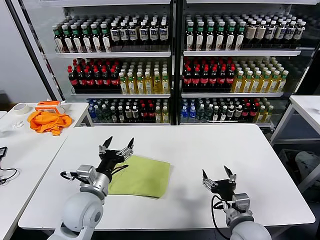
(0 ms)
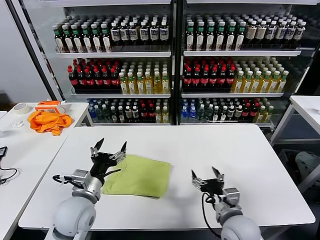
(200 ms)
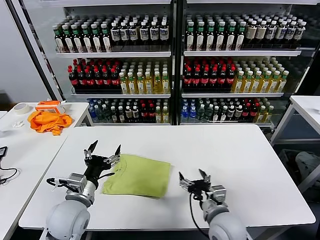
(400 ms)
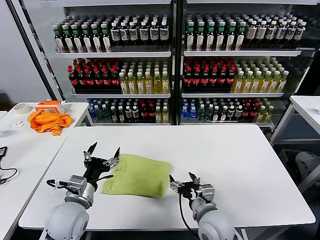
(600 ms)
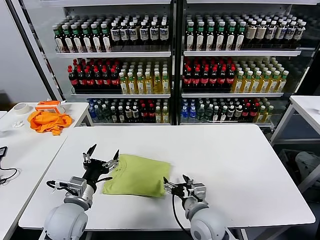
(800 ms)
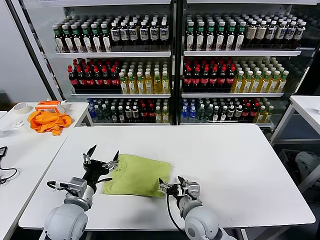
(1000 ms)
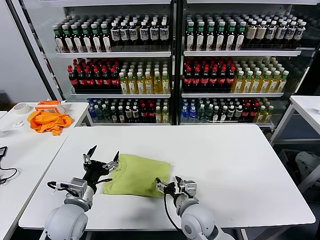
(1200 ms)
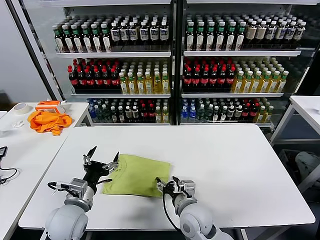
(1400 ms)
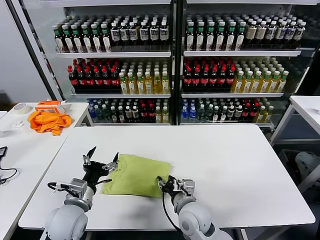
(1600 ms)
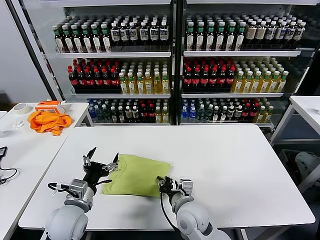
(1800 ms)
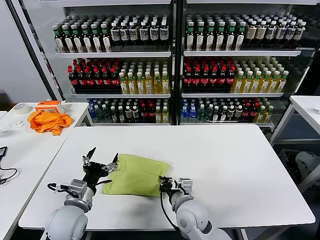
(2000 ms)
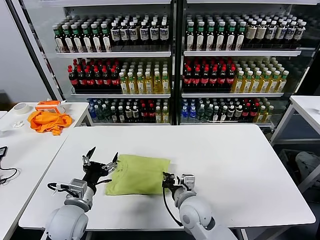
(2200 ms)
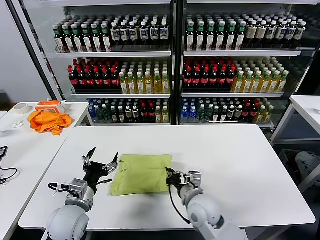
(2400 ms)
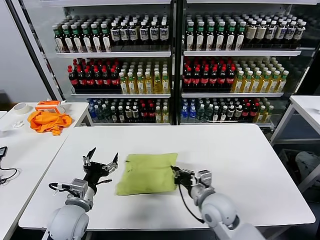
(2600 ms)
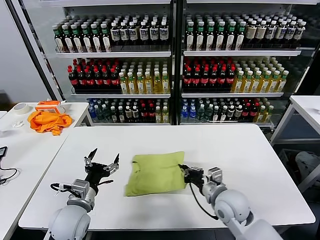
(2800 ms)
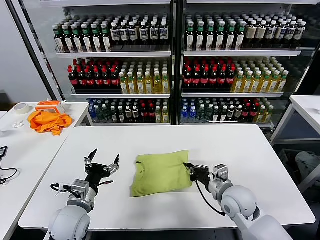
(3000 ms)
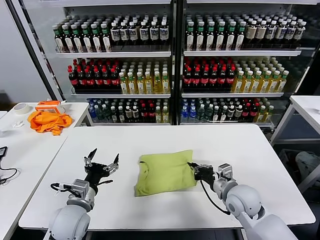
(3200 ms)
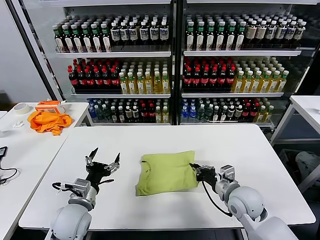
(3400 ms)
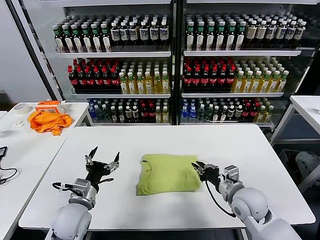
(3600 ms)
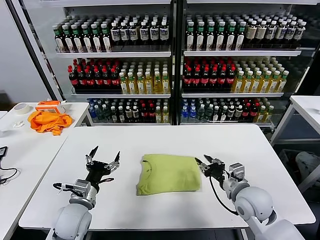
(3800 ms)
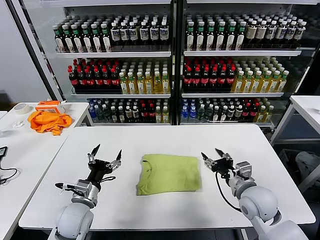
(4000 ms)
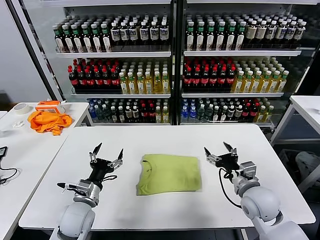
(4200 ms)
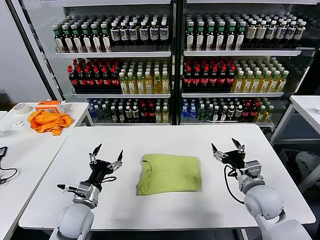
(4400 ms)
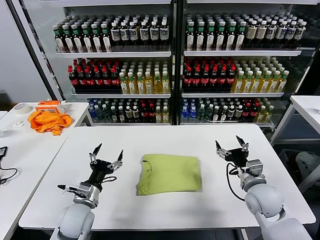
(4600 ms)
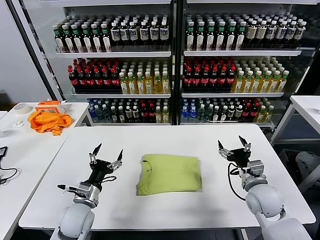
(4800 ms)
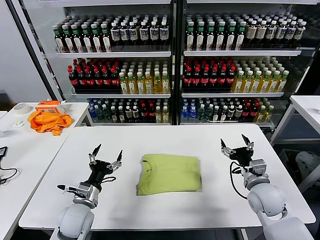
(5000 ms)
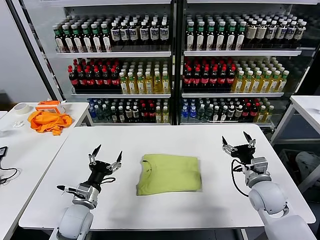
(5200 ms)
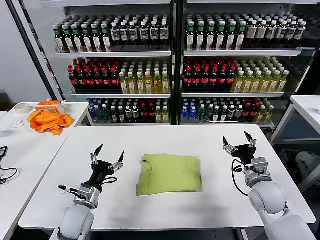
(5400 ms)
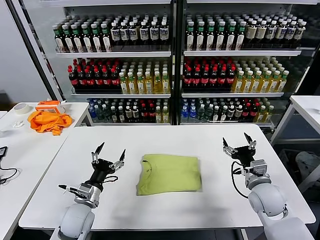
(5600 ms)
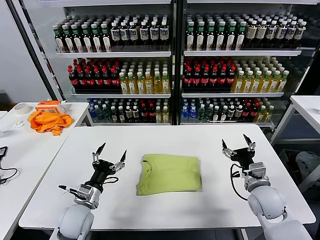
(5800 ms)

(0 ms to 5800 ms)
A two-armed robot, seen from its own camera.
Task of the whole recording: fold and organize the clothes.
Step, 0 ms - 3600 ms: Drag the clothes to the center of the table.
0 ms - 1400 ms: The left gripper is displaced to the left by about 5 cm; the right gripper travels to the left and forward by some 15 cm.
1400 ms - 2800 ms: The right gripper heads to the right, covering about 10 cm, and closes up.
2800 ms - 4400 ms: The right gripper travels to the right by about 10 cm, and opens up.
4400 ms - 5800 ms: The grippers make only small movements.

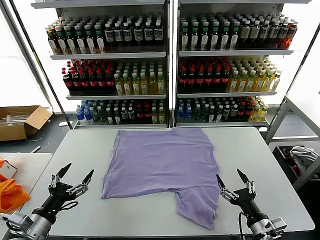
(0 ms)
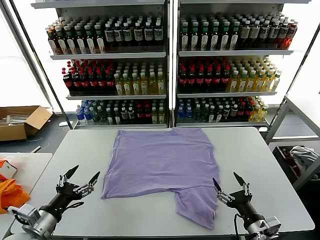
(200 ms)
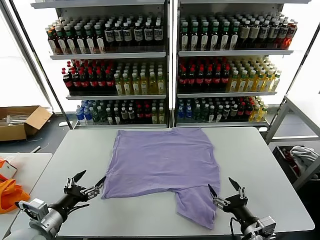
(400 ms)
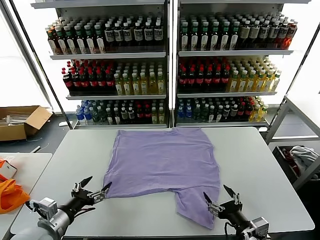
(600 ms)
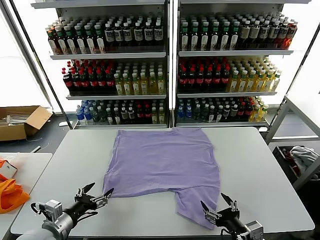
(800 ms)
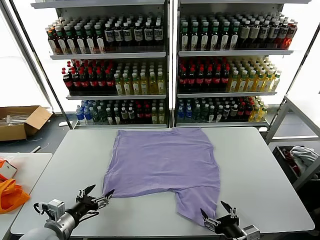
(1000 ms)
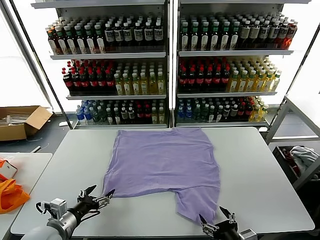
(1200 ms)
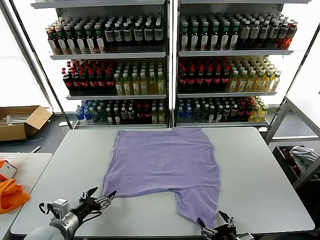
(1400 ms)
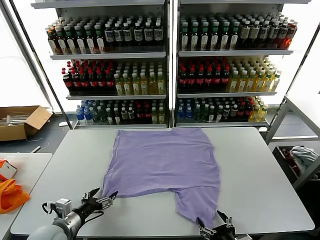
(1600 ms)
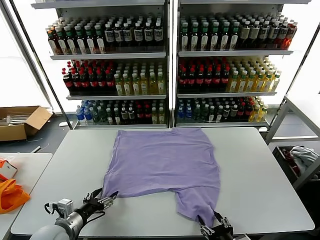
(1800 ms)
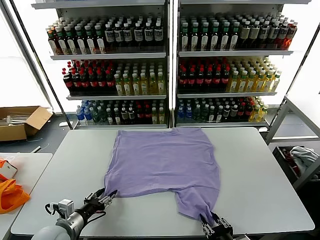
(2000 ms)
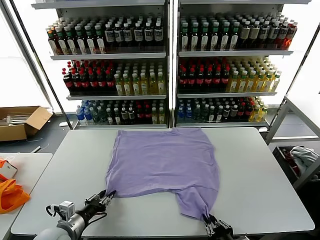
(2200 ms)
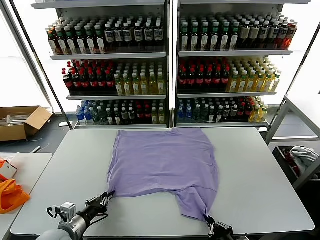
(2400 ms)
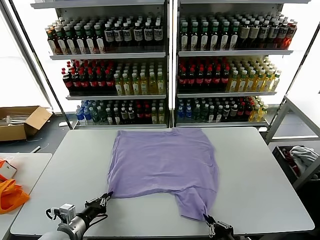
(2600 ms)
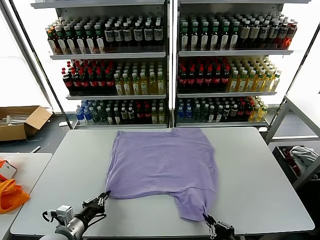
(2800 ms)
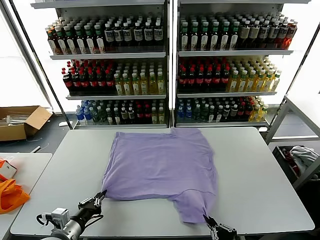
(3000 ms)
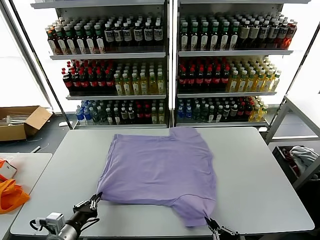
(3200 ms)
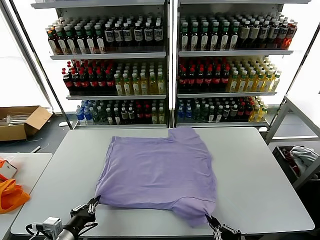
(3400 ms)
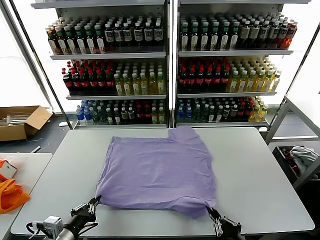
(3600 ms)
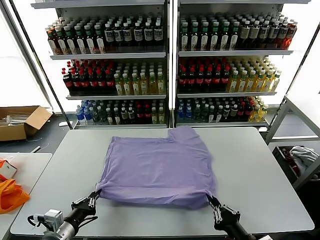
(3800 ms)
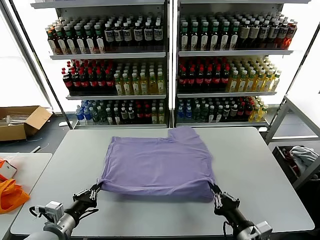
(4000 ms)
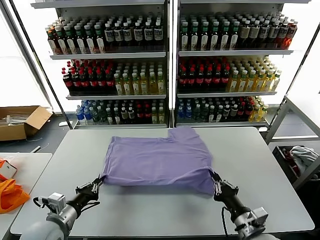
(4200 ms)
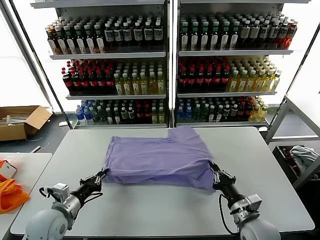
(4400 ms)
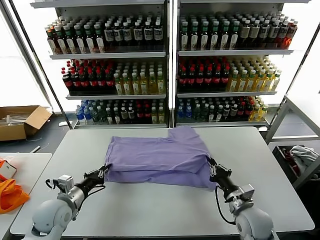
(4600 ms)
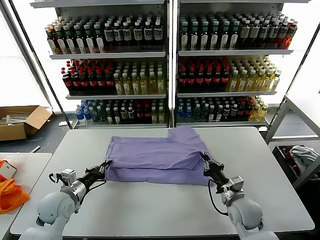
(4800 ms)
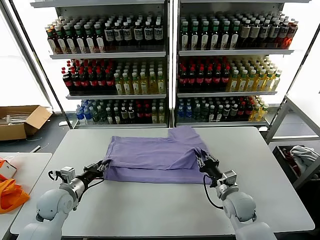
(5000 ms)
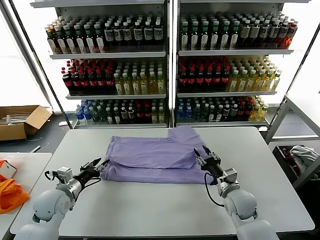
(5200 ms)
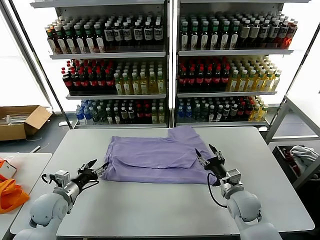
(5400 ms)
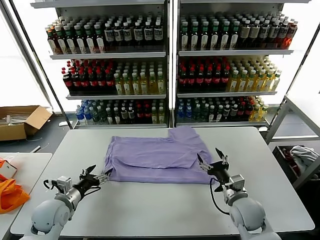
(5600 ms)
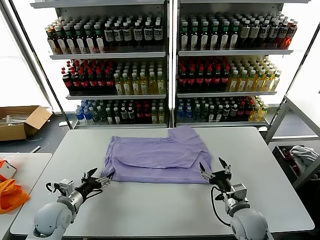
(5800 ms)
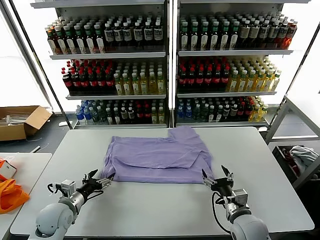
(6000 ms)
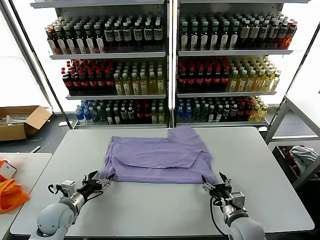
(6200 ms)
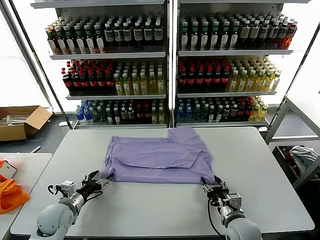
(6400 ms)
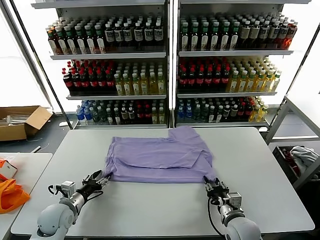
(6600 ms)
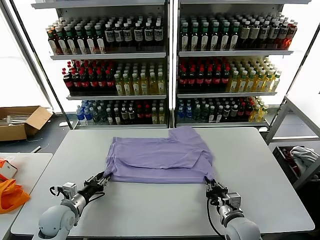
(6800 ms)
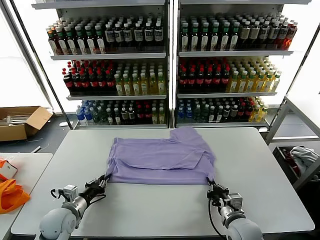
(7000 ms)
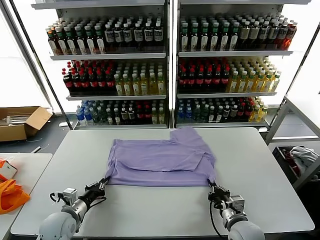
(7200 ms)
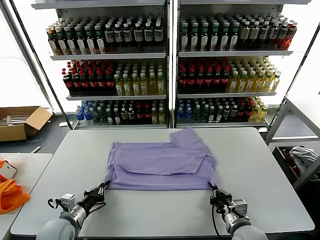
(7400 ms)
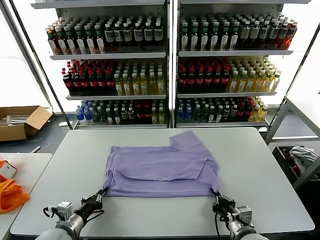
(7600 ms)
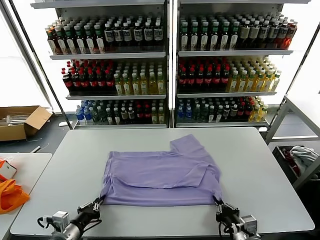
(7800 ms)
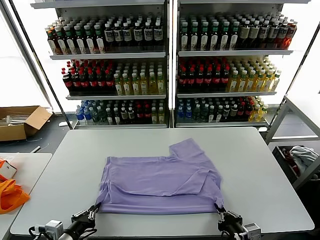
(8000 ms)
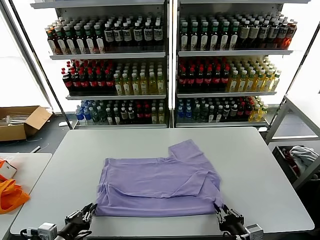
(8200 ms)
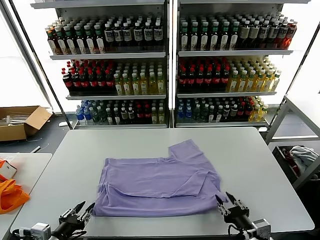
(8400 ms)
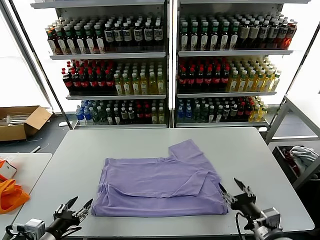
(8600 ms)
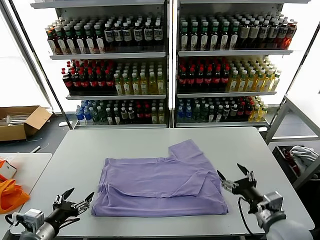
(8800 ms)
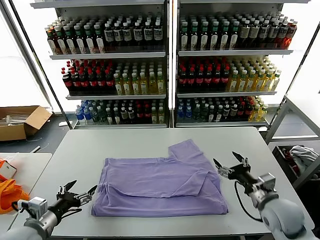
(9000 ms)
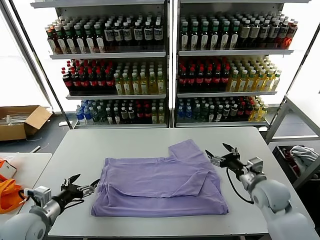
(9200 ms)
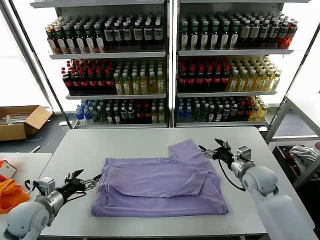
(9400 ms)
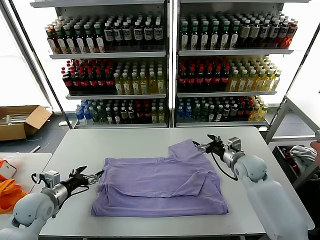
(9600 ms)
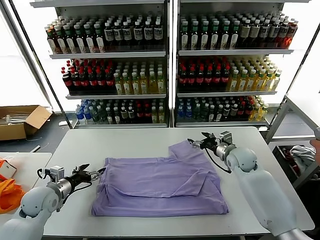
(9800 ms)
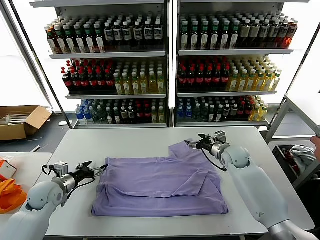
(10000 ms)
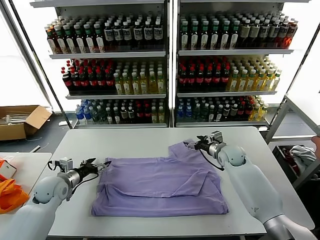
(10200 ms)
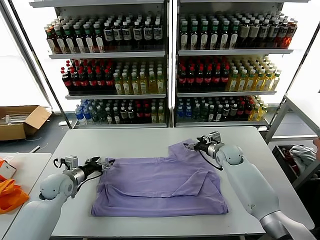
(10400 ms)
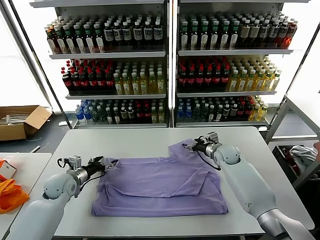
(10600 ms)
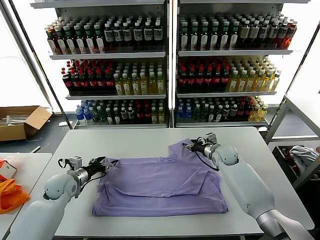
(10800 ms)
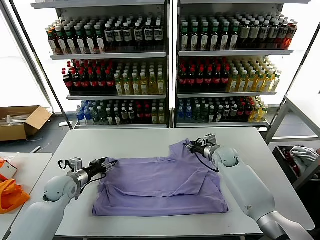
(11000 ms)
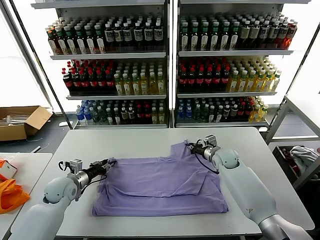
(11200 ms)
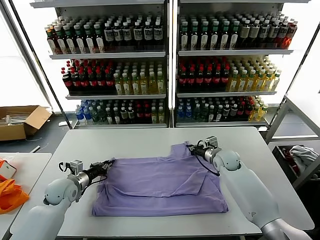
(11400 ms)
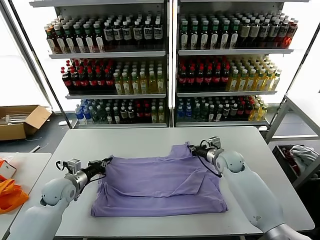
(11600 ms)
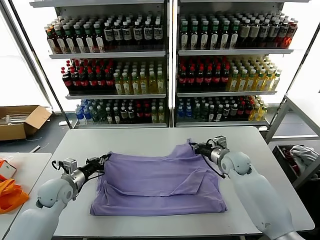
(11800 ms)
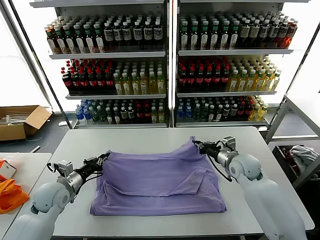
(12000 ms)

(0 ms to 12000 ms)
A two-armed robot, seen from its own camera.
Task of the whole recording: fold and organize the clothes.
Step, 0 ms - 2800 ms: use both grippers simultaneously to clamp the lower edge of the clothing fabric.
Step, 3000 ms - 5200 ms: use both grippers to drag the lower edge of the fabric forward and fold it over the upper edge.
Step, 5400 ms - 8400 ms: Drag the clothes downward with both gripper.
Step, 8600 ms - 11400 ms: use both grippers simultaneously to clamp the upper edge of the clothing fabric.
1600 ms - 3000 ms: The right gripper closes its fingers. Meanwhile the left gripper closes.
3000 ms - 4400 ms: The left gripper travels forward by about 5 cm. The right gripper moves forward, roughly 15 cm.
4400 ms - 6000 ms: The right gripper goes forward and returns, approximately 10 cm each way, and opens its fingers. Meanwhile the left gripper changes place by some 5 cm, and opens its fingers.
6000 ms - 7600 ms: Both grippers travel together backward, approximately 5 cm. The left gripper closes its fingers. The right gripper closes.
7600 ms - 9000 ms: The left gripper shifts about 10 cm upward, and opens up, while the right gripper heads forward, upward and to the right, covering approximately 15 cm, and opens.
9000 ms - 10400 ms: Both grippers move forward, roughly 20 cm.
10400 ms - 12000 ms: The left gripper shifts by roughly 5 cm, and closes up. The right gripper heads backward, covering some 10 cm, and closes up.

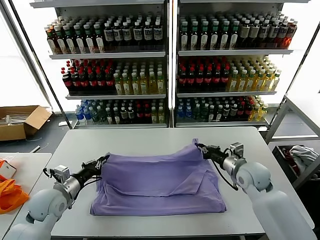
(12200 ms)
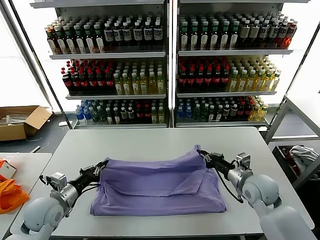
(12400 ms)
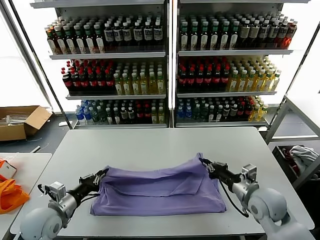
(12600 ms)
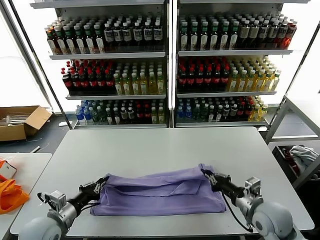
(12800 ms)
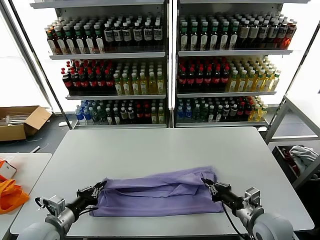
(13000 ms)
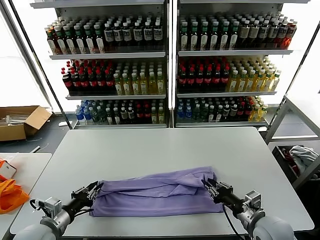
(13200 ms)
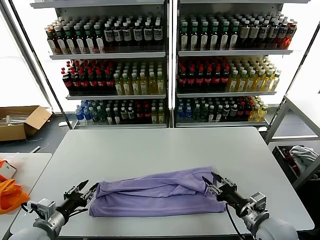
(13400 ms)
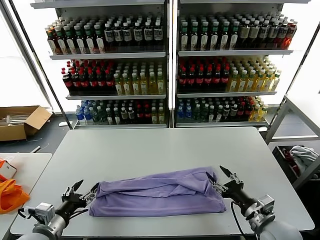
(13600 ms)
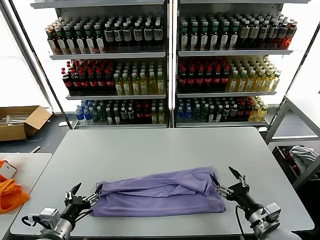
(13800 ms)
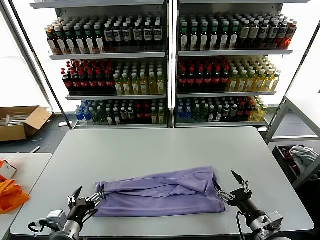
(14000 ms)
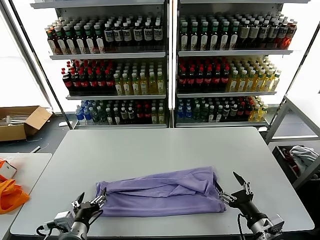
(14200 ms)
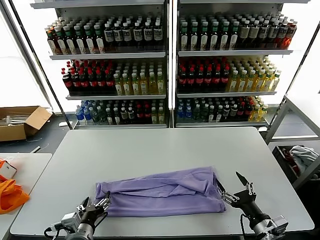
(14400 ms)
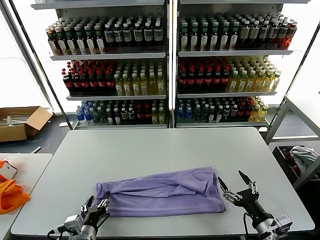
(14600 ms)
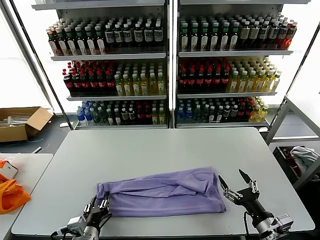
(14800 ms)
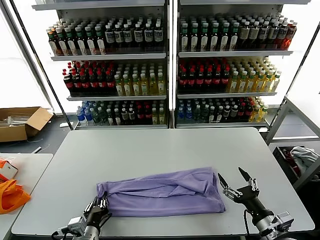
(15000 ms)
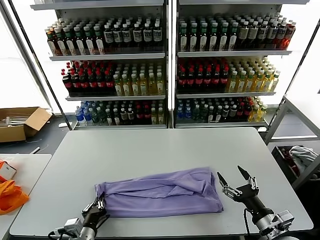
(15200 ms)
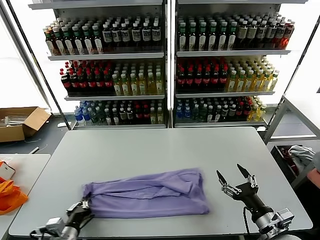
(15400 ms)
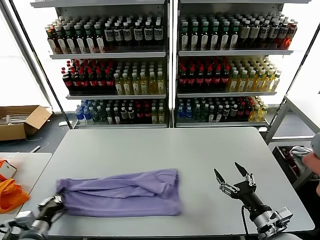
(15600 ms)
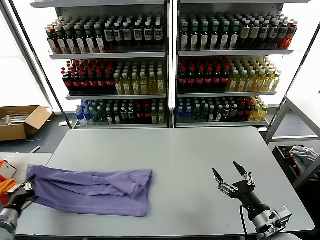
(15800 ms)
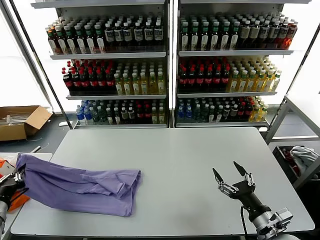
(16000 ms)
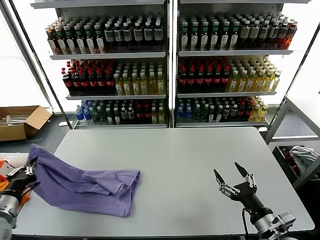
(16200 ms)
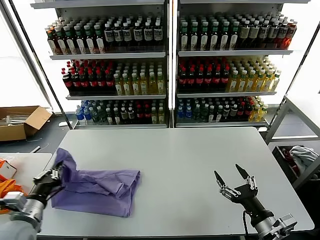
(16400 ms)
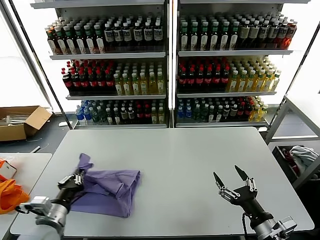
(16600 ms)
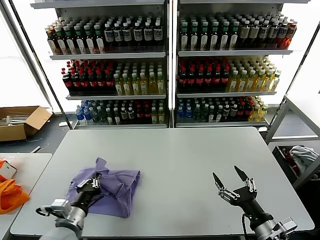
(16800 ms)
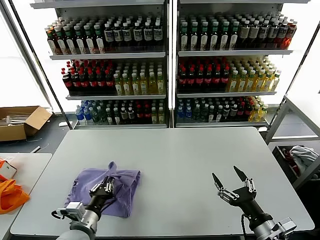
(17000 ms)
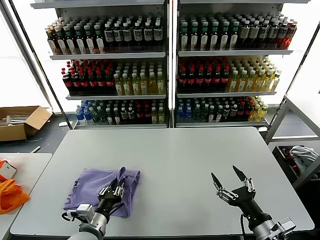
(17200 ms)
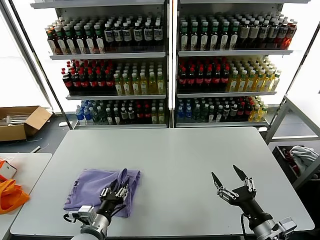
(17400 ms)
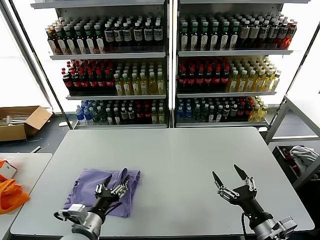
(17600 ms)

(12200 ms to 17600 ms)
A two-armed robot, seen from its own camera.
Task of the whole recording: fold and organize the clothes.
Step, 12200 ms - 13400 ms: use both grippers to drag the upper edge of the fabric backward and fold it over the lower edge.
Step, 13600 ms - 15200 ms: use the left gripper to clamp the left edge of the fabric.
Step, 15400 ms - 17600 ms: use the left gripper to drag the left edge of the fabric to the left and folds it over the right edge.
12200 ms - 13600 ms: Both grippers travel together backward, roughly 15 cm. The right gripper opens; the left gripper opens up.
13600 ms - 15000 ms: The left gripper moves to the right and downward, about 15 cm.
15000 ms - 16200 ms: The left gripper moves to the left and upward, roughly 25 cm, and closes up.
16200 ms - 17600 ms: The left gripper is displaced to the right by about 25 cm, and opens up.
